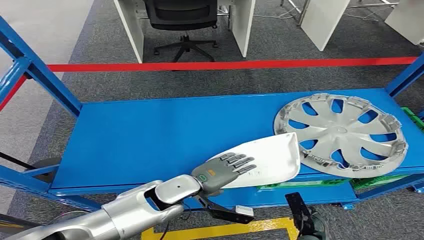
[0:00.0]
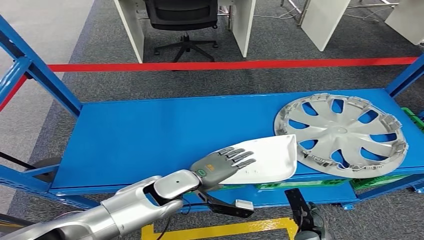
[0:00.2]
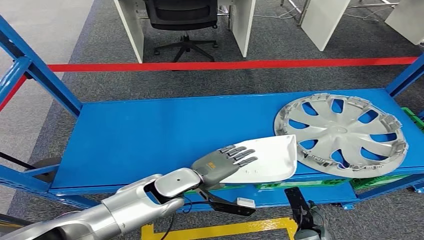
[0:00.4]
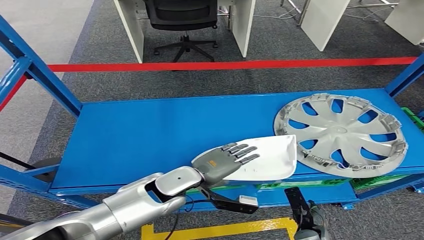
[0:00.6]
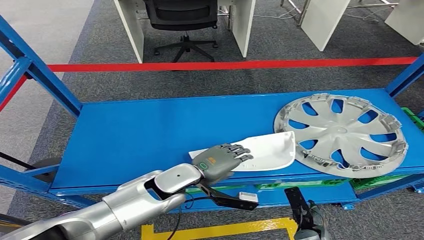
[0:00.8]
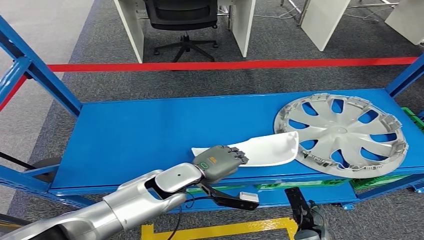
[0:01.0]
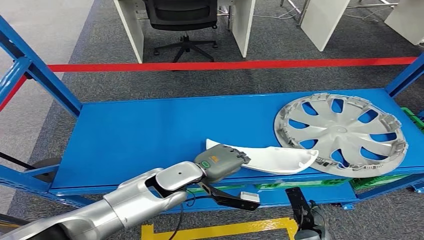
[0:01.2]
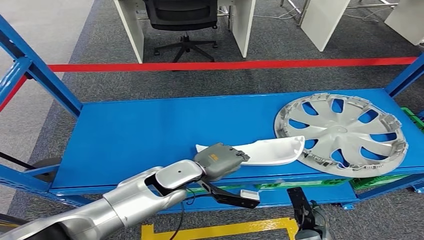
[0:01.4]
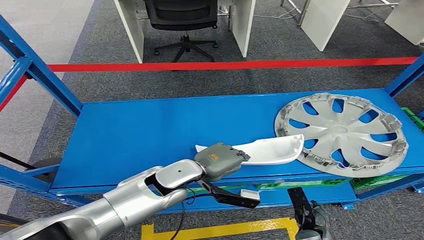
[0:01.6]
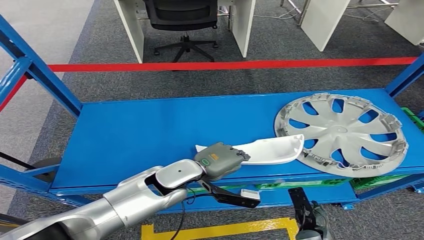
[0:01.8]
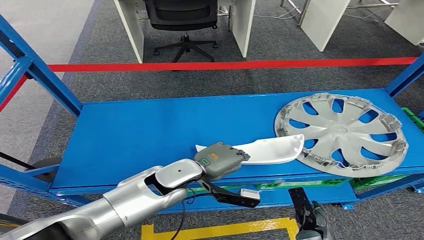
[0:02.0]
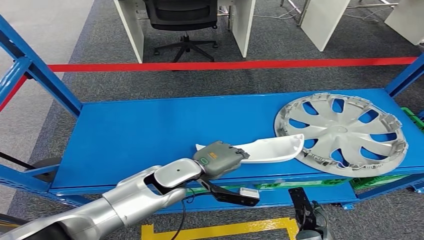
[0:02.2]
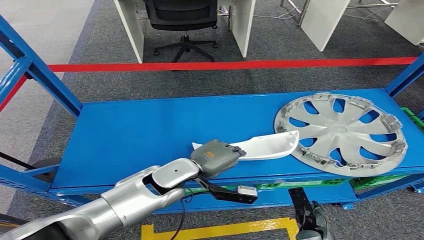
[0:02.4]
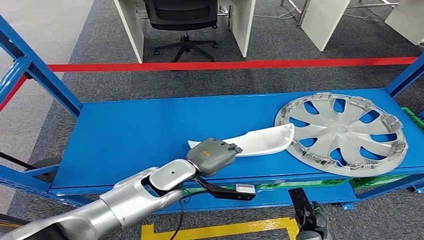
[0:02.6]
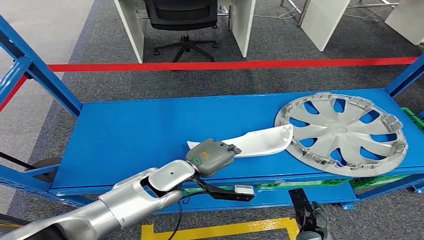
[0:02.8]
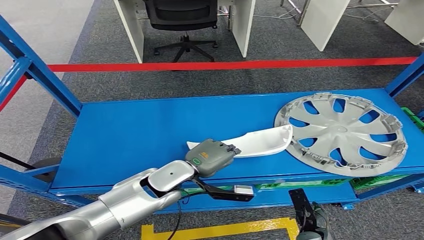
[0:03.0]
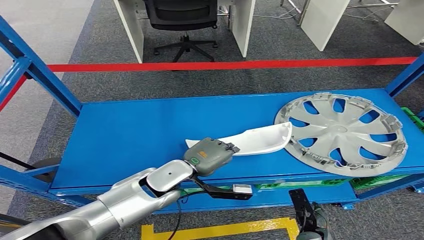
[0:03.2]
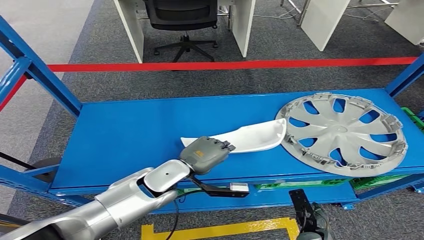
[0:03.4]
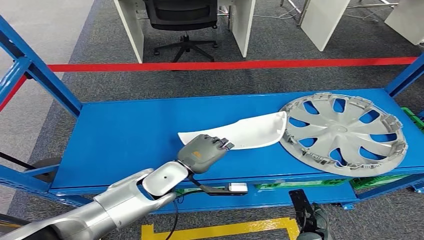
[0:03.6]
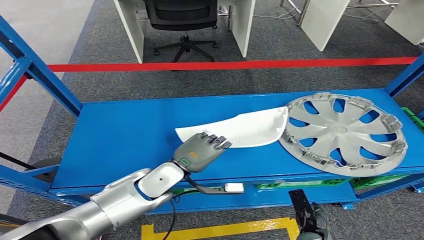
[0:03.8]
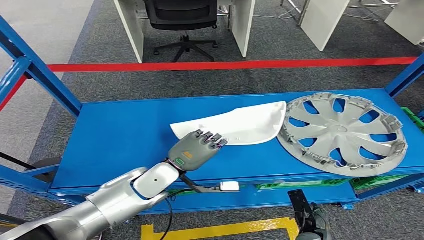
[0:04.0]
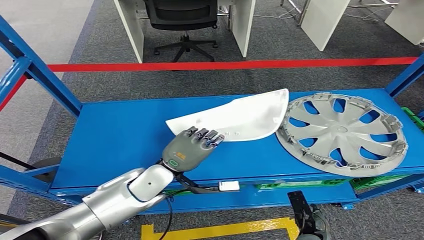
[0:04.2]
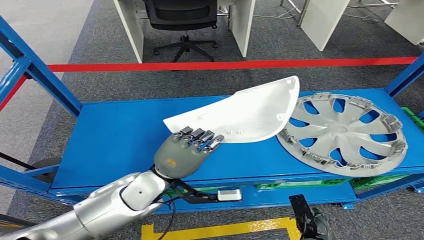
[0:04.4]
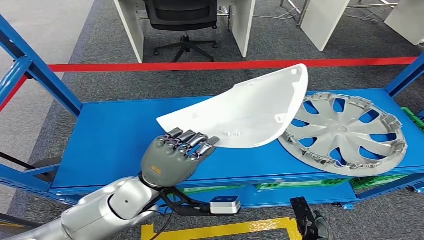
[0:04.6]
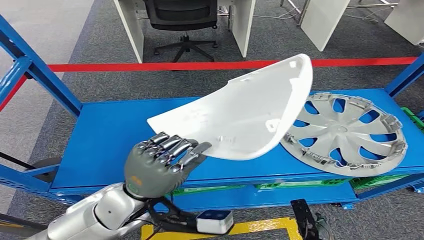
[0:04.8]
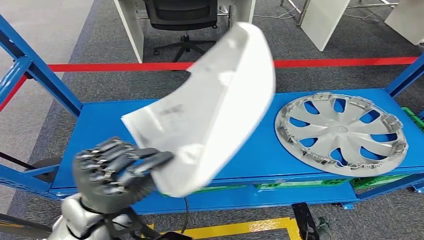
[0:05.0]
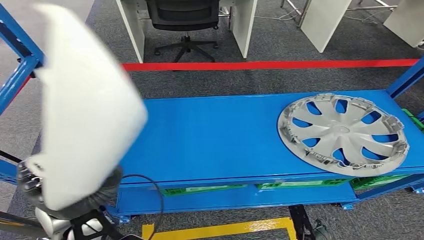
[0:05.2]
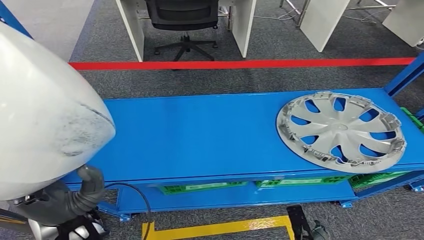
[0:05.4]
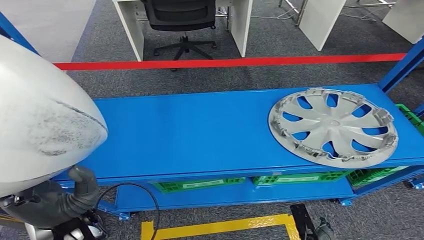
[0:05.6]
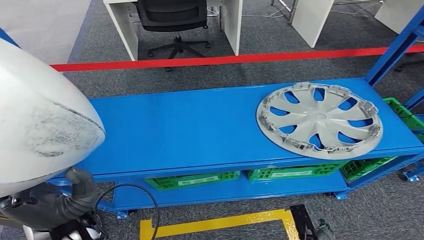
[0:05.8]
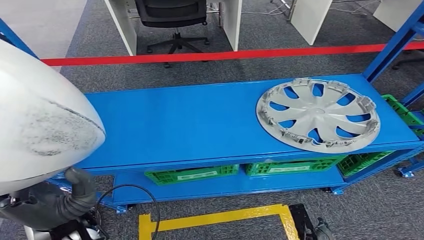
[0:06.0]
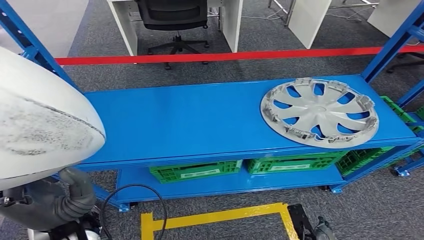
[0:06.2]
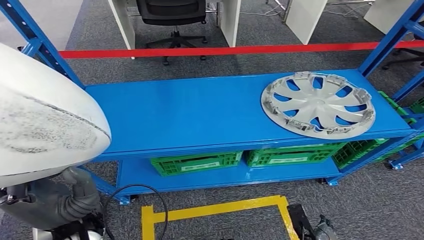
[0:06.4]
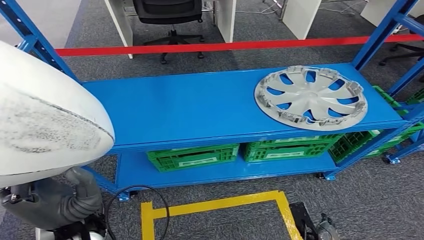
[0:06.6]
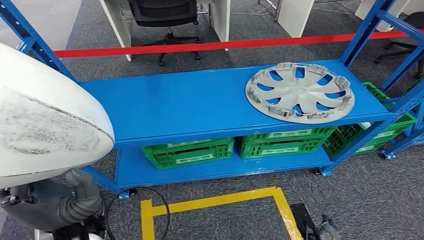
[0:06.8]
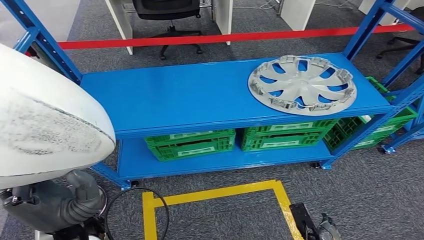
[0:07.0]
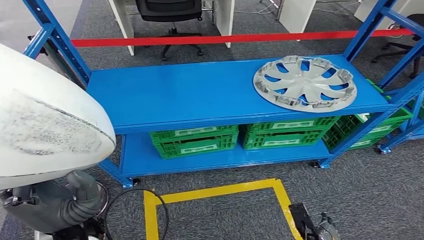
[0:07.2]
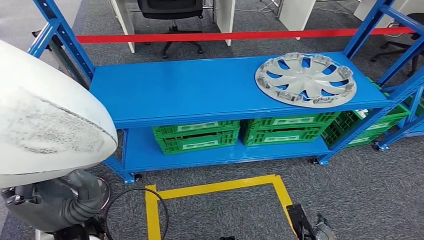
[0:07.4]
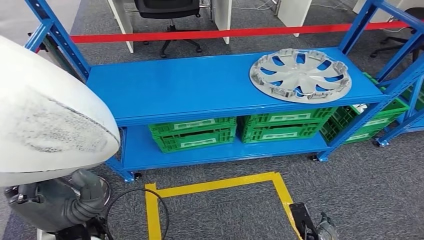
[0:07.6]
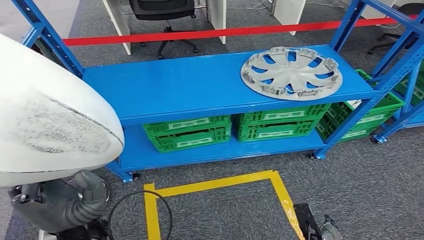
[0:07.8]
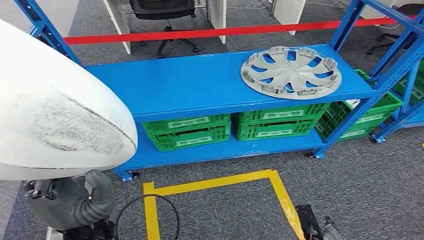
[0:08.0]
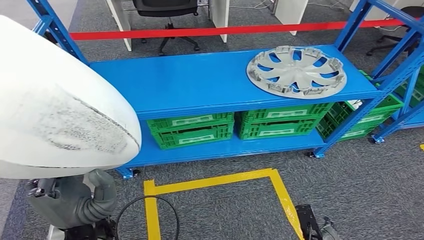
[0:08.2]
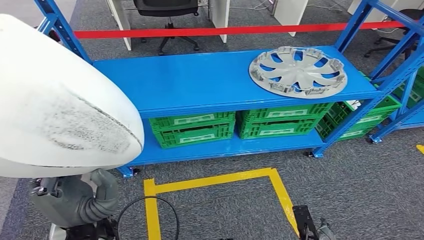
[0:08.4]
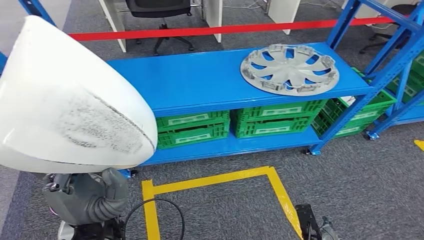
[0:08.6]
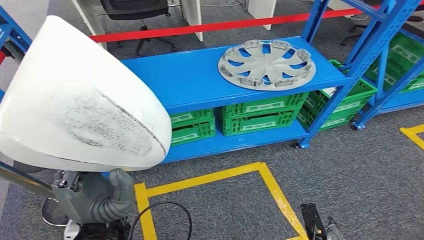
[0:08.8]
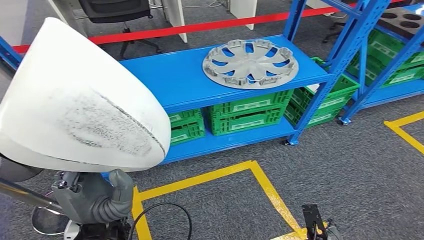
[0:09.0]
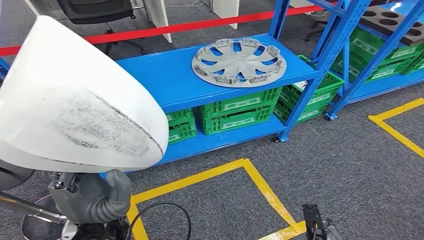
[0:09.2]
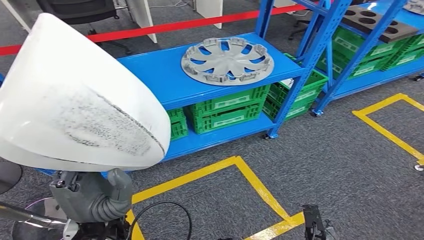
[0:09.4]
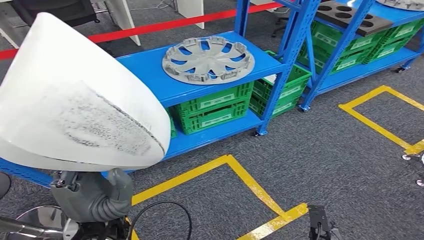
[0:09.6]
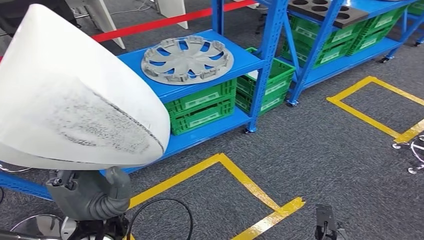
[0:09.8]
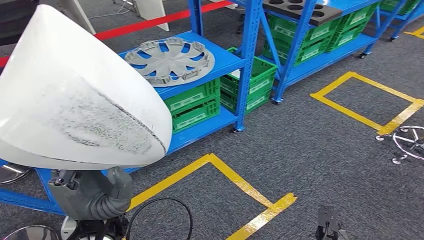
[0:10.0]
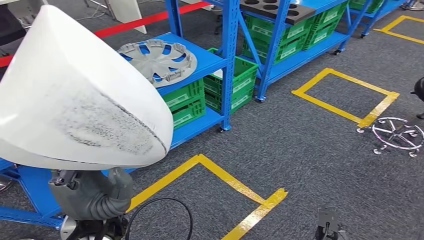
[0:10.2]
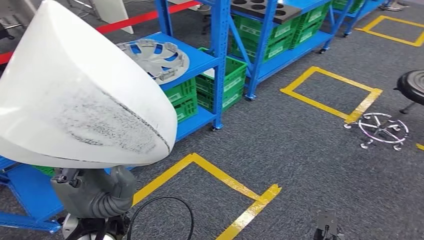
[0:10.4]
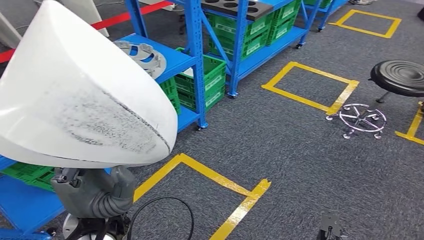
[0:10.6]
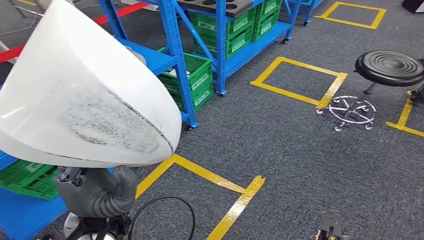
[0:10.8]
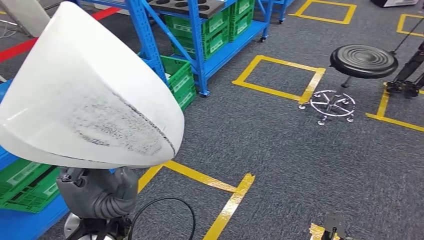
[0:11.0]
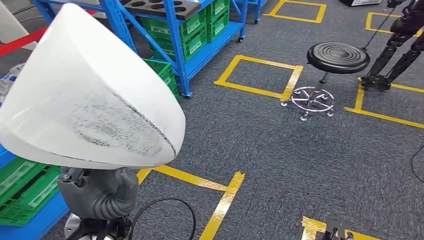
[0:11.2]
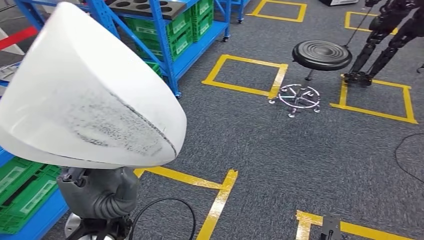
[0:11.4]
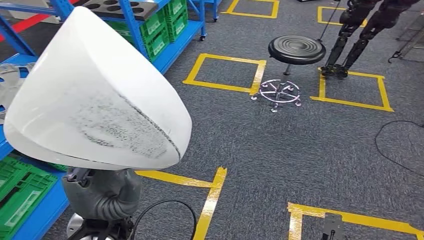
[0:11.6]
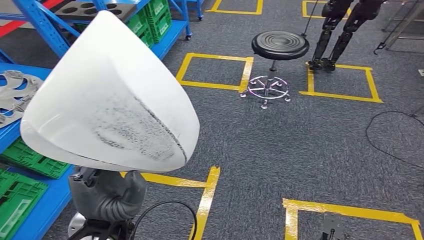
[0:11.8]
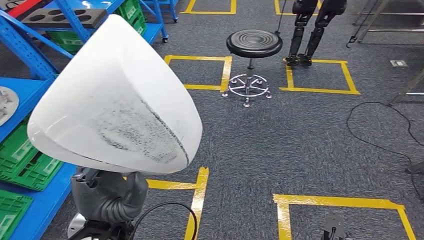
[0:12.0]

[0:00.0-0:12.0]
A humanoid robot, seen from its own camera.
Step, 0:00.0 to 0:06.4: Take small components from the rack.
0:01.6 to 0:03.0: The hands make only small movements.

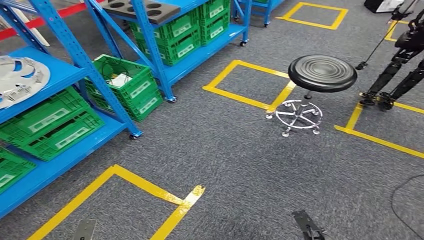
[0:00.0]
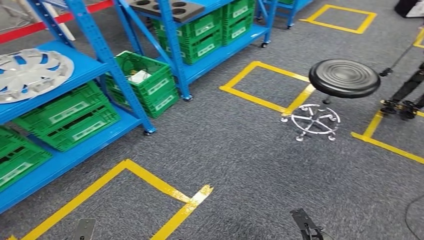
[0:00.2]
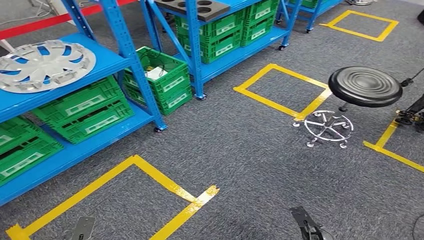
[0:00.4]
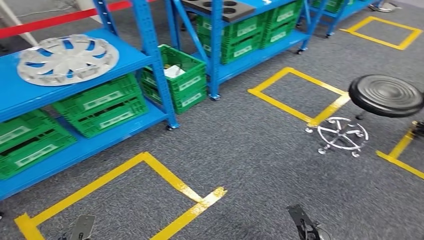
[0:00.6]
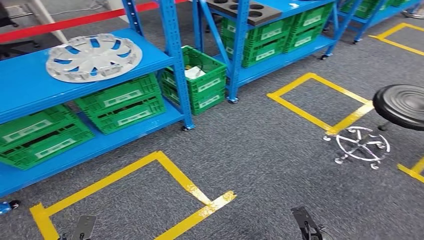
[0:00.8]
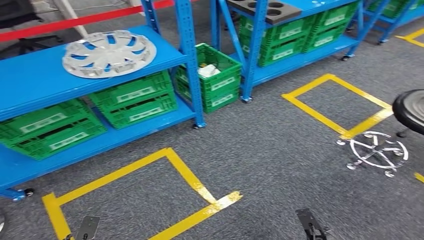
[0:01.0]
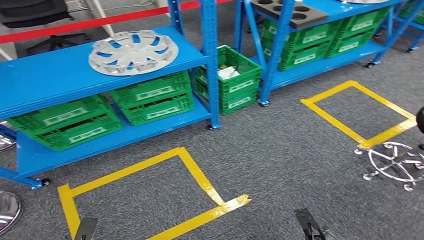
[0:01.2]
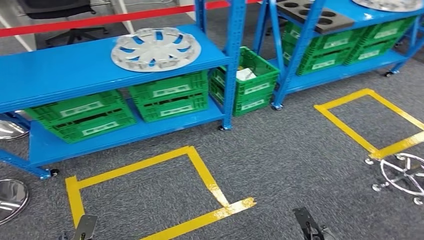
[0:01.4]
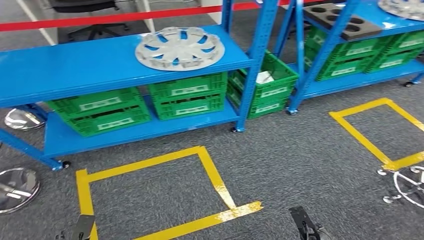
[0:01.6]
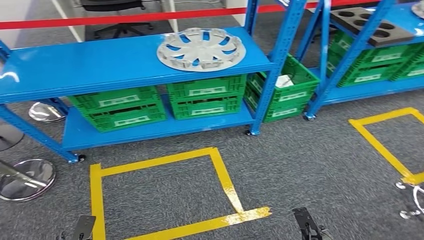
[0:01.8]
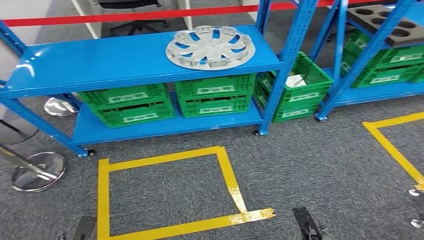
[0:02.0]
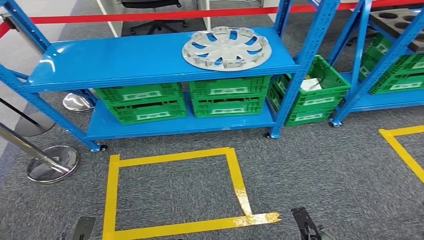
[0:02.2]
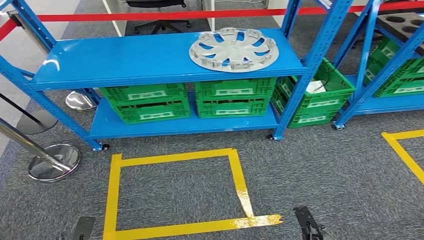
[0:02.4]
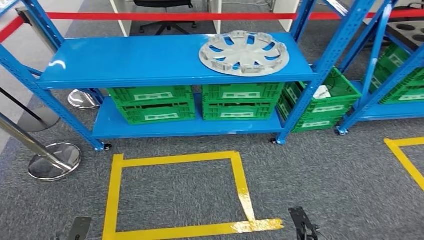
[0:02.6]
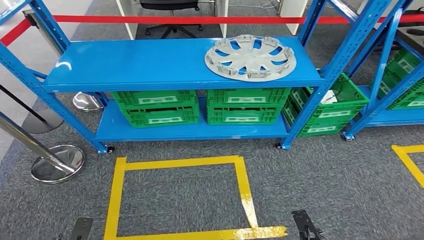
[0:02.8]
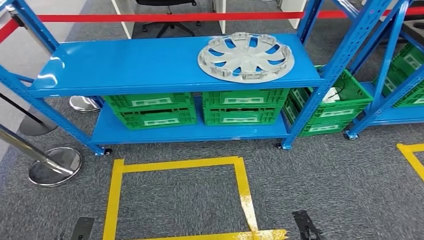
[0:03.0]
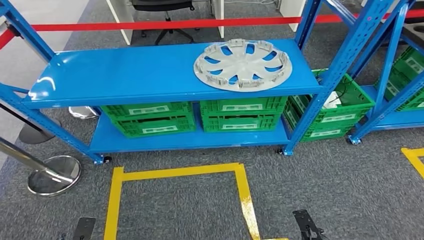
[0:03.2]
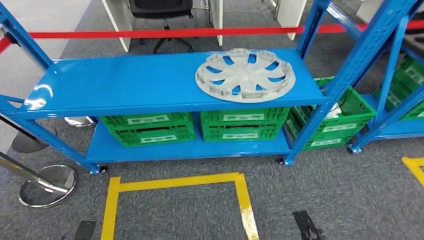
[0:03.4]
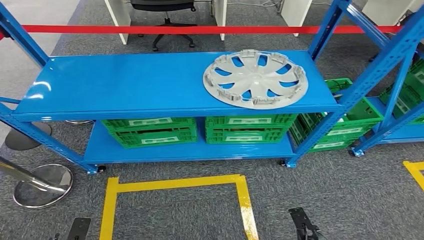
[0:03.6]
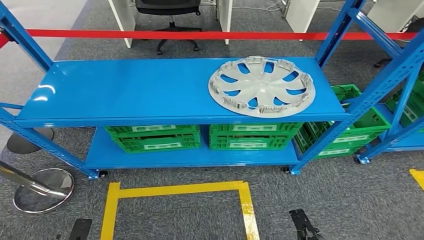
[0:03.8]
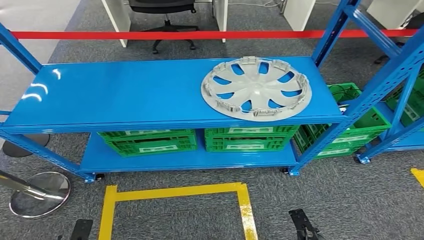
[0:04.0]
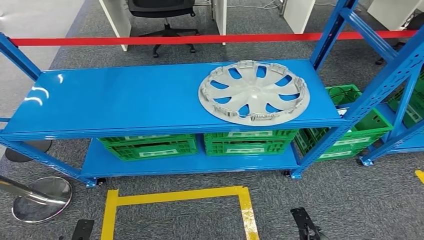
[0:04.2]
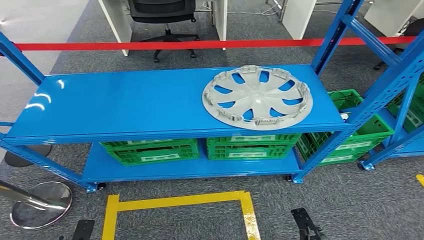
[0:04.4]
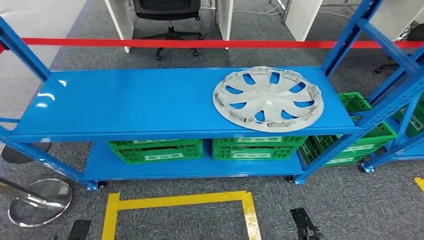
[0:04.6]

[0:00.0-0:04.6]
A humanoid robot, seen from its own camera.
Step, 0:00.0 to 0:04.6: Move to the initial position of the workbench.
